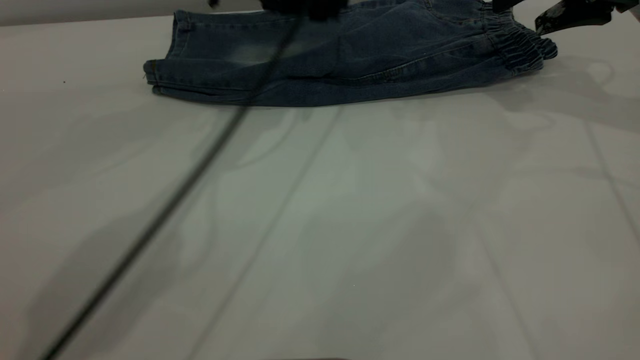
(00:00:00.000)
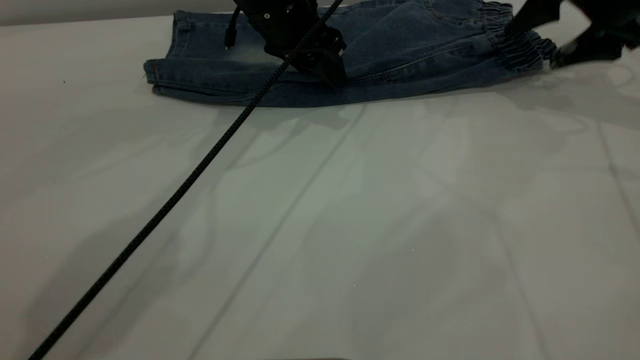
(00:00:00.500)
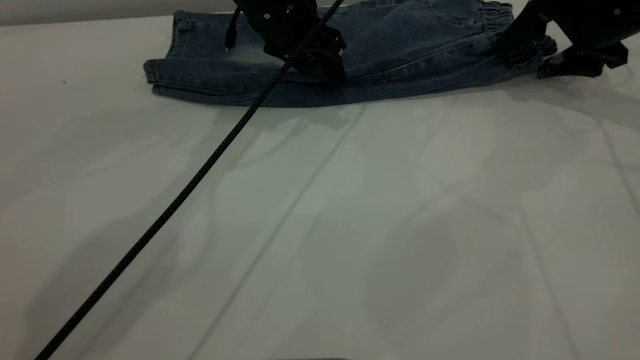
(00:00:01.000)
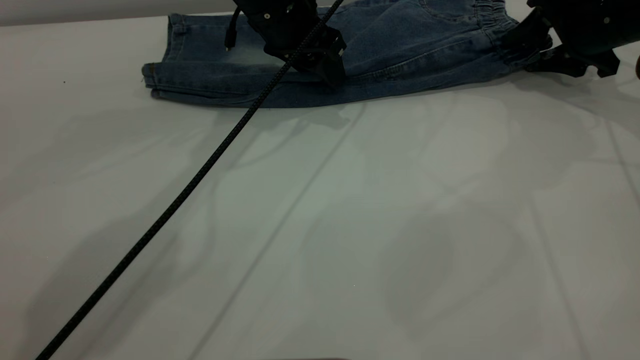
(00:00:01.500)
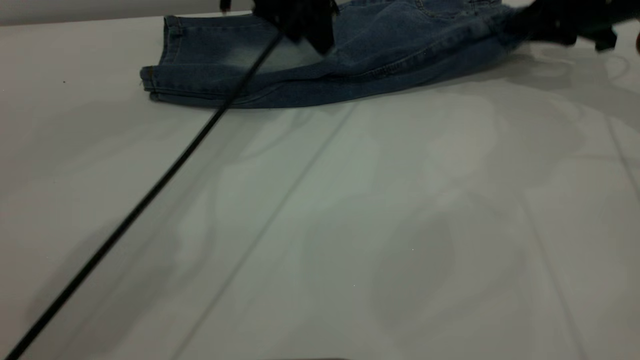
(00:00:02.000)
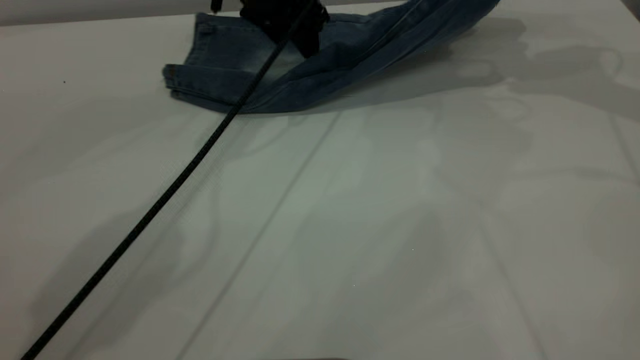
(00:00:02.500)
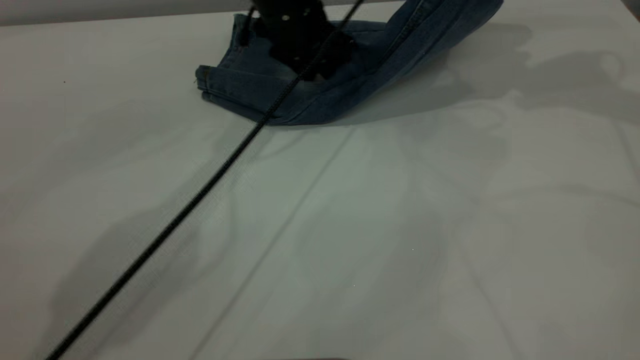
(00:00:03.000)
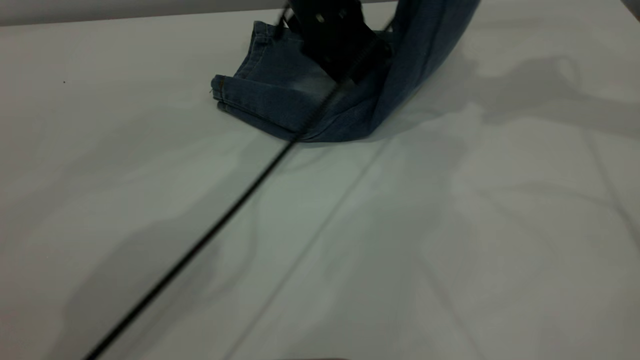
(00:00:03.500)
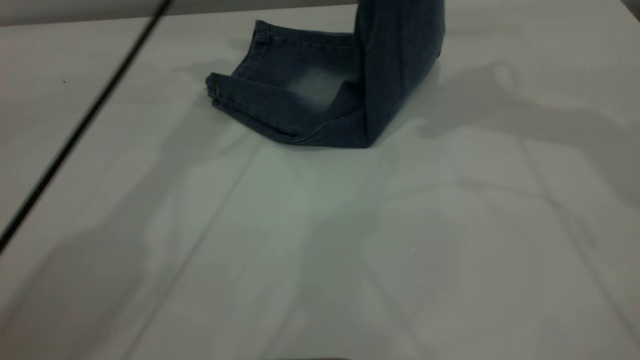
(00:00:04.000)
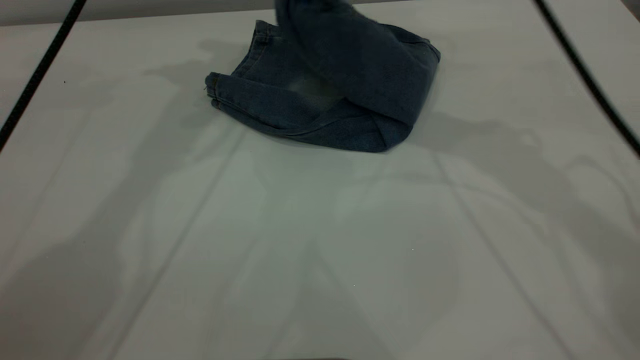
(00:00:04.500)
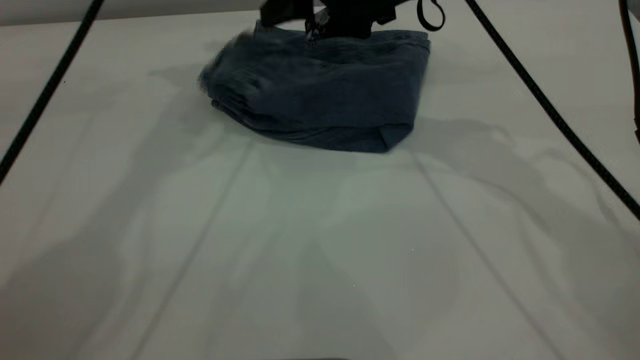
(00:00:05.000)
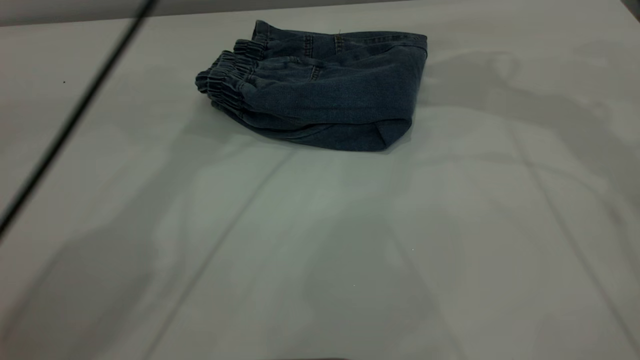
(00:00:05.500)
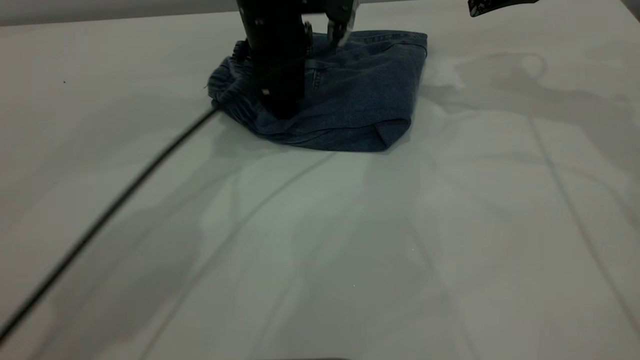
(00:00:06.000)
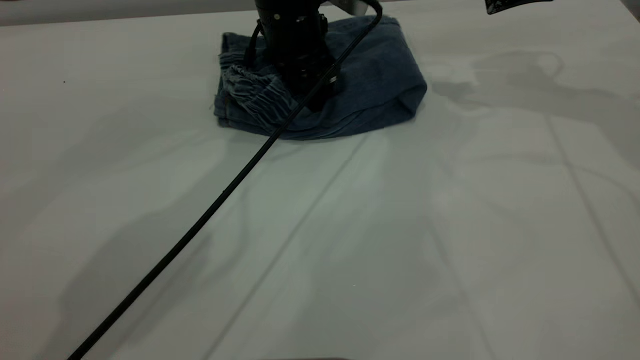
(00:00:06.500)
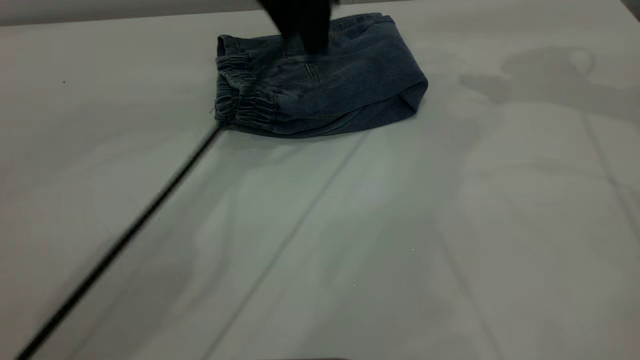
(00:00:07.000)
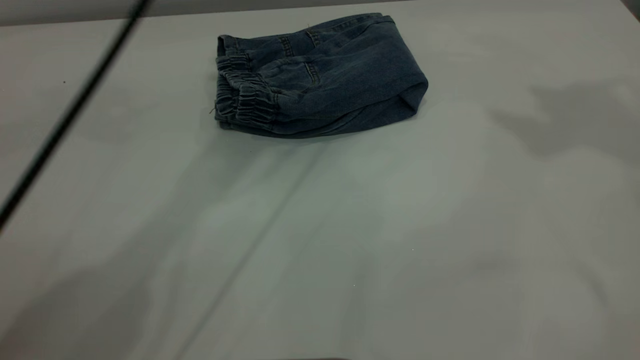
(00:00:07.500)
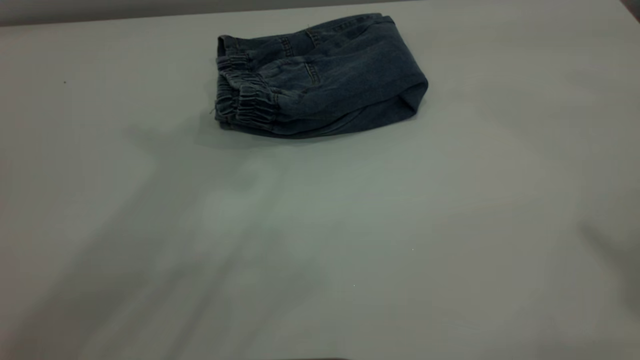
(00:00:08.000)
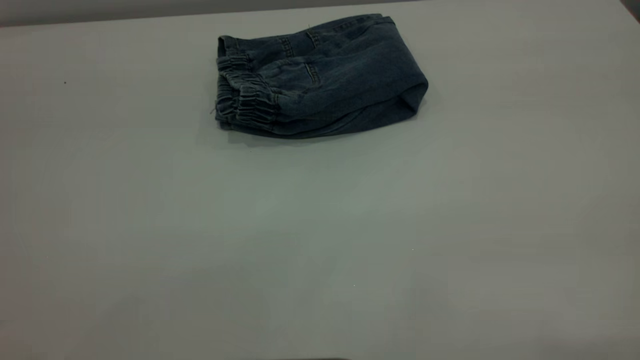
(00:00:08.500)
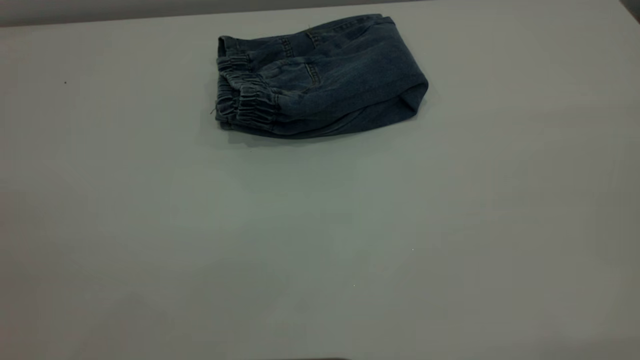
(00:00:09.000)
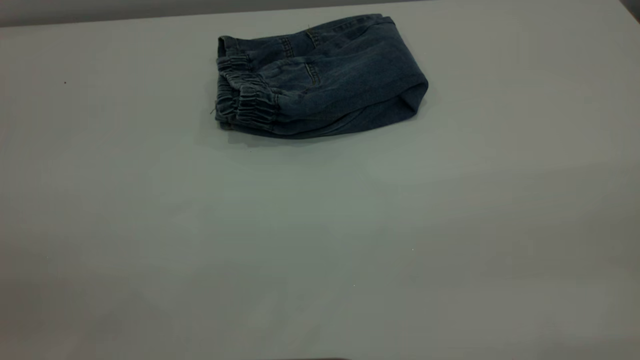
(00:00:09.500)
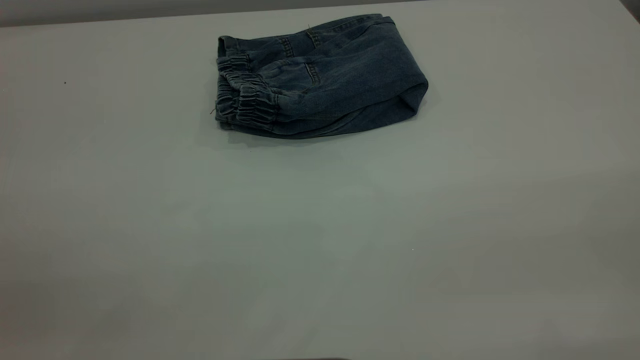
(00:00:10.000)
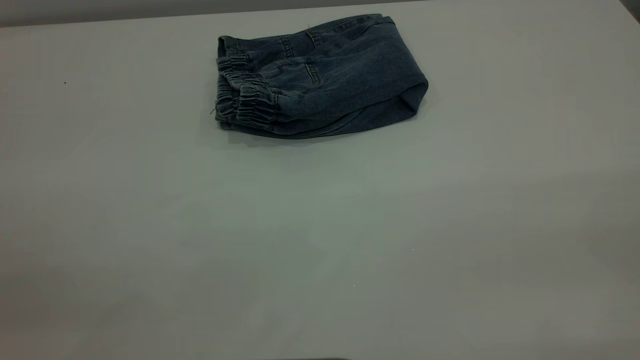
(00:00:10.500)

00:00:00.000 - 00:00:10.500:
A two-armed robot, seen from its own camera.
Step, 00:00:00.000 - 00:00:05.000: Fold your pants from right to left.
00:00:00.000 - 00:00:02.000: The right gripper travels downward by some 5 cm, and closes up.
00:00:02.000 - 00:00:04.000: The left gripper is displaced upward and to the left by about 10 cm. Meanwhile the right gripper moves upward and to the left, some 20 cm.
00:00:04.000 - 00:00:06.500: The left gripper is displaced downward and to the right by approximately 20 cm. The right gripper shifts some 10 cm downward and to the right, and opens.
00:00:06.500 - 00:00:08.500: The right gripper shifts some 50 cm backward and upward. Meanwhile the left gripper is displaced backward, upward and to the left by about 60 cm.
